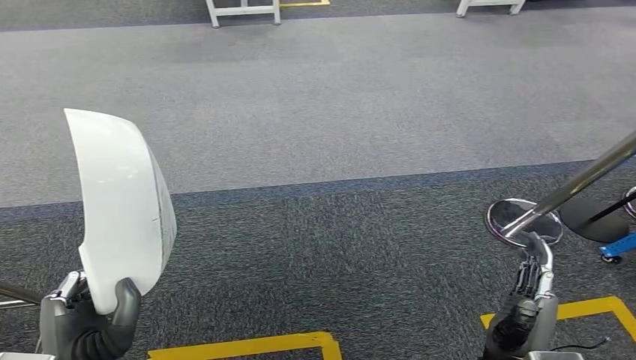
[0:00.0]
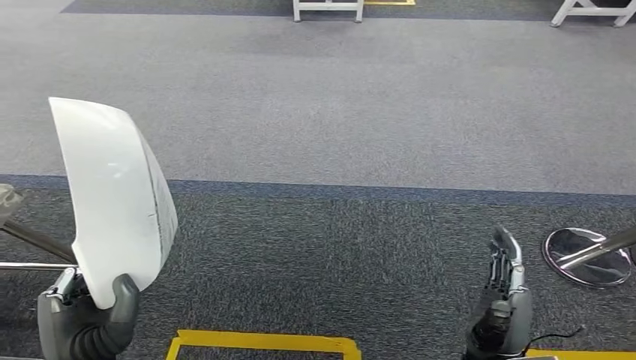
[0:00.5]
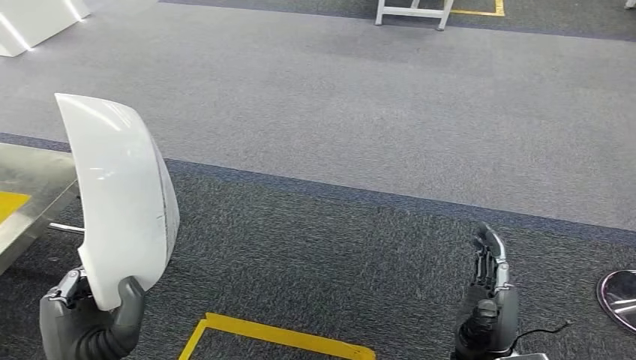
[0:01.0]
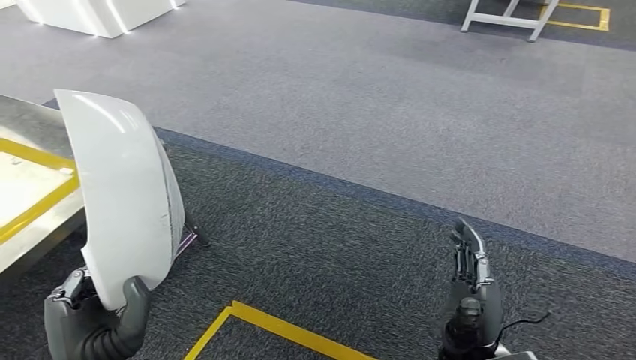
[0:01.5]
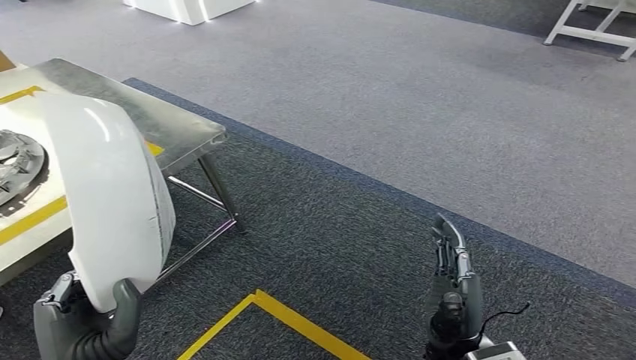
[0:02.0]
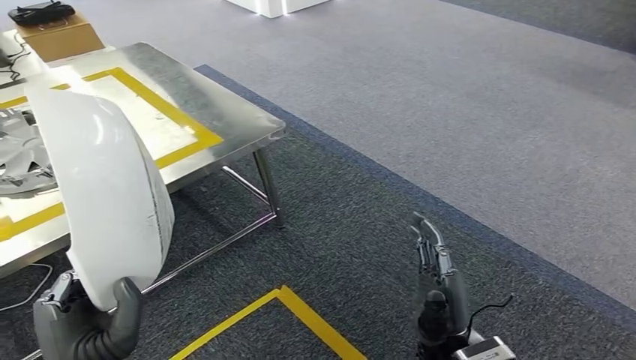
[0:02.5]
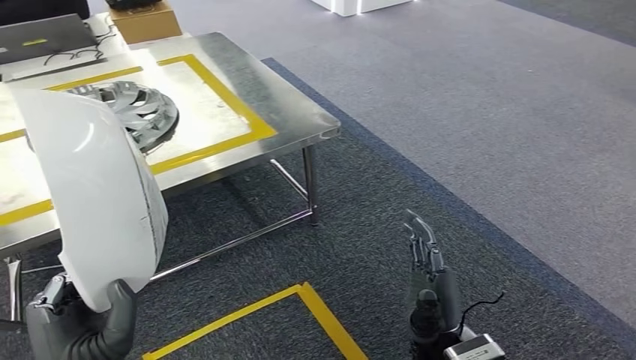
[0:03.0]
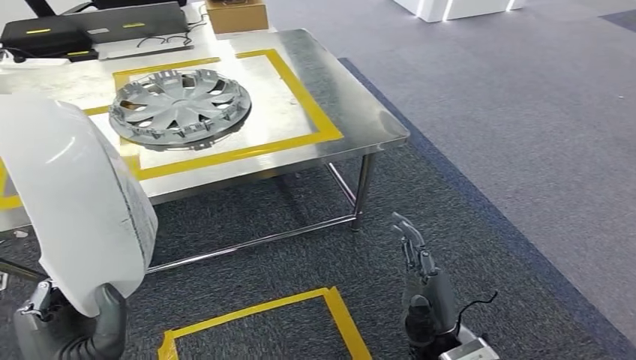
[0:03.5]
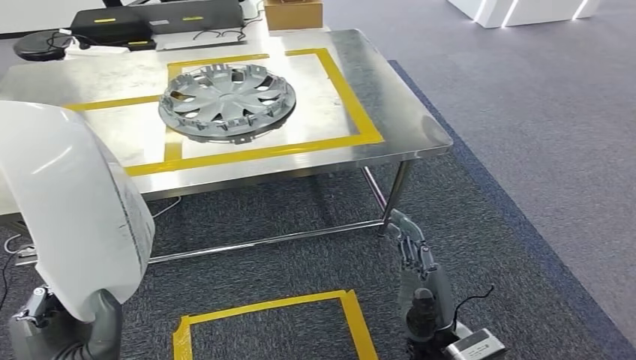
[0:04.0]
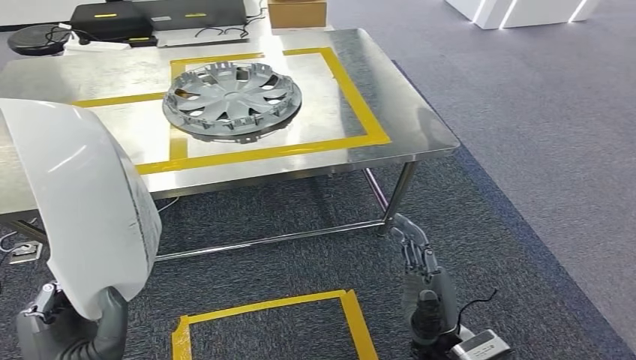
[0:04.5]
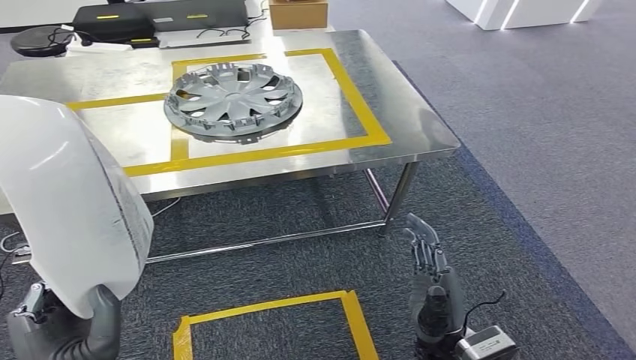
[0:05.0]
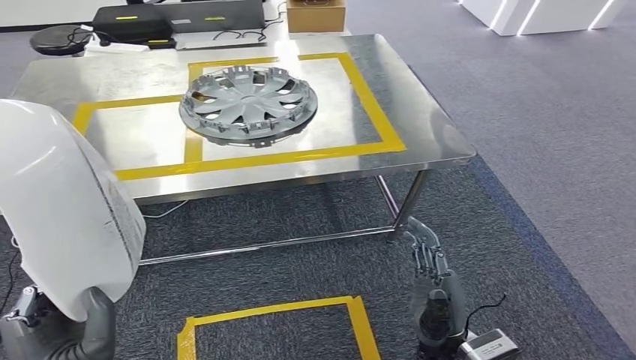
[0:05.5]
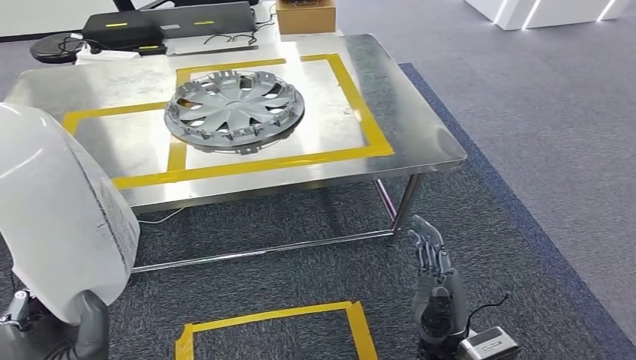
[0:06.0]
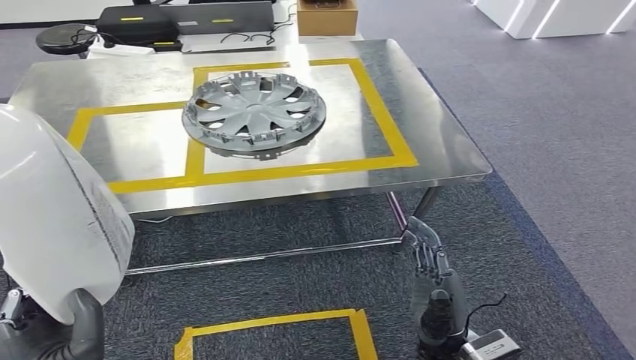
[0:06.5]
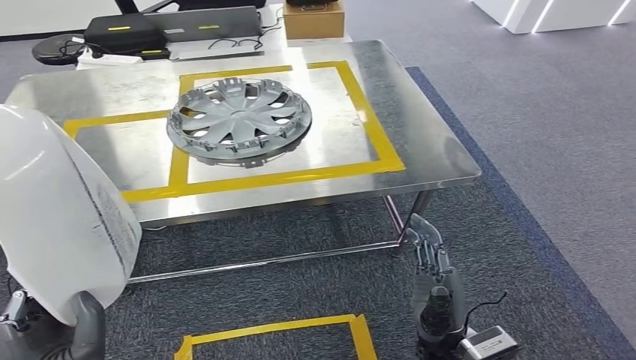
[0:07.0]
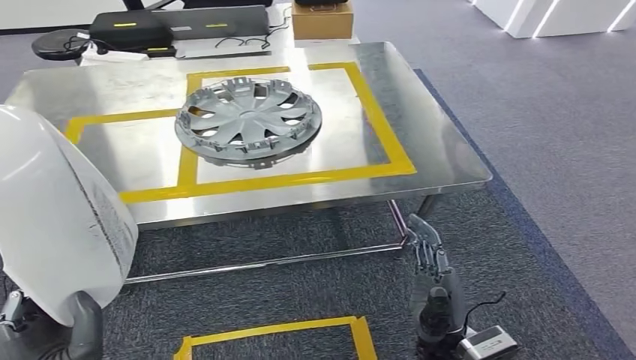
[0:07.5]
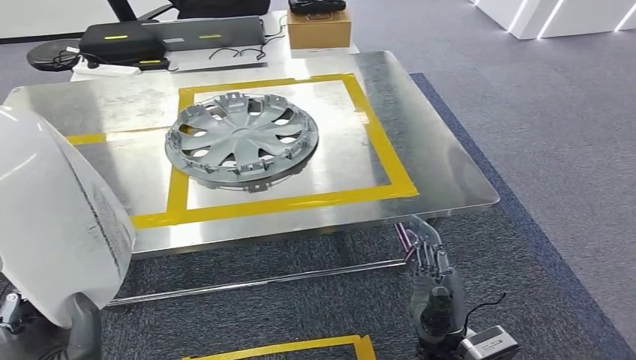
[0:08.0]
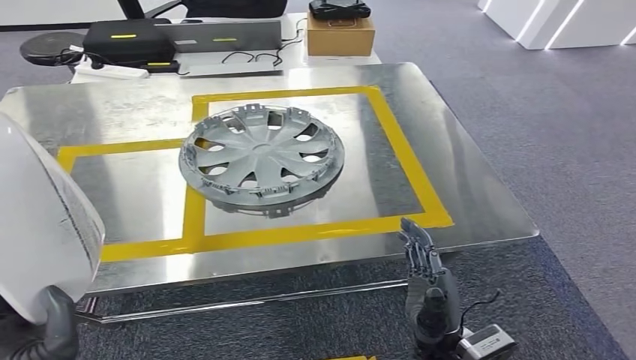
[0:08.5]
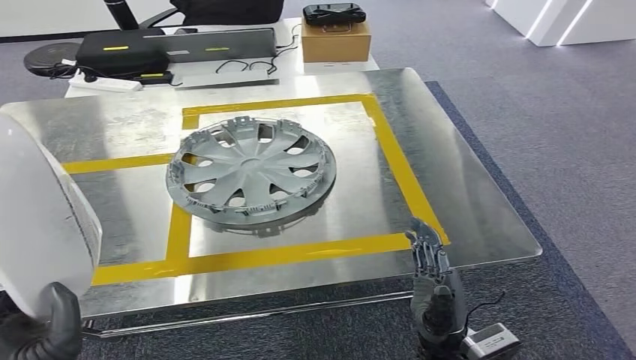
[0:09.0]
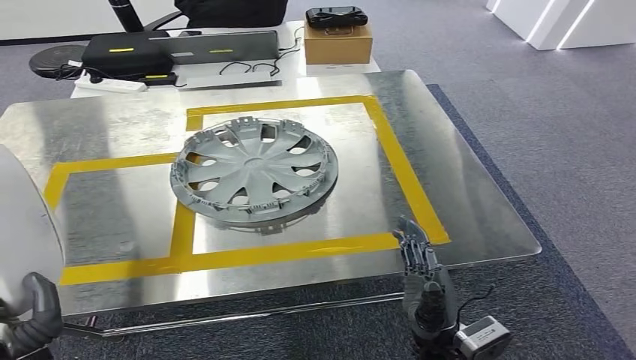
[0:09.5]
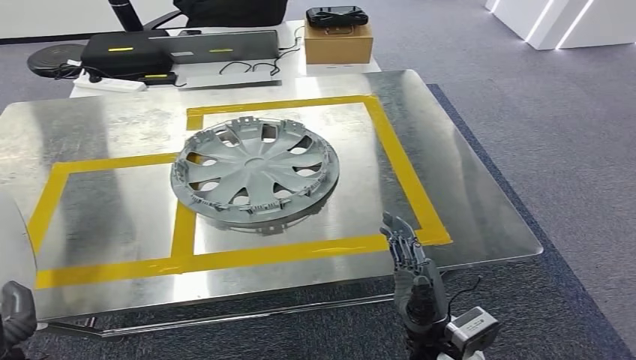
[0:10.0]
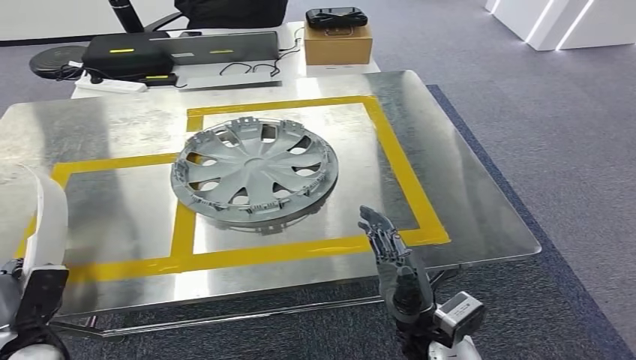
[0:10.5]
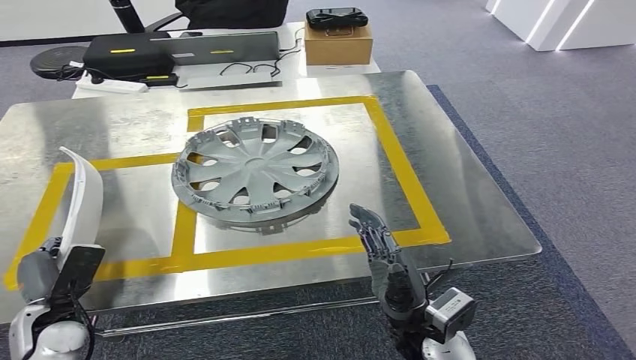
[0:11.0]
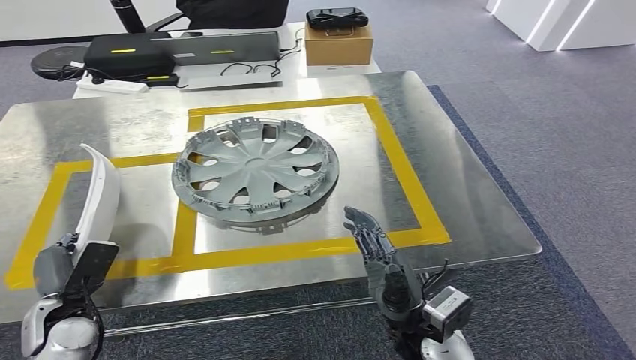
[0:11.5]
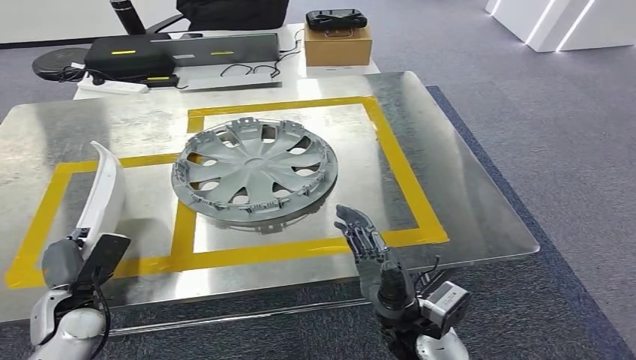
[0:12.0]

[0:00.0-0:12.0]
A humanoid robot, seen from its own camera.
Step, 0:00.0 to 0:09.0: Move the small parts to the workbench.
0:10.0 to 0:12.0: The left hand is displaced forward by some 10 cm.

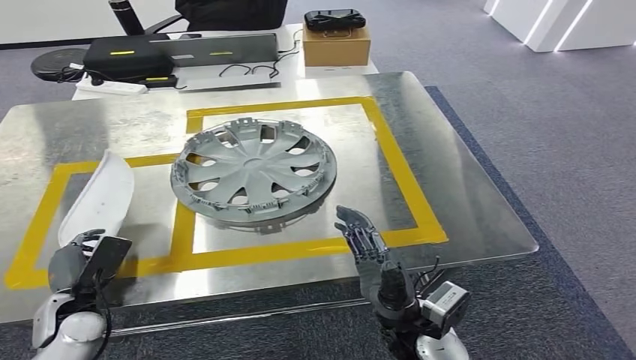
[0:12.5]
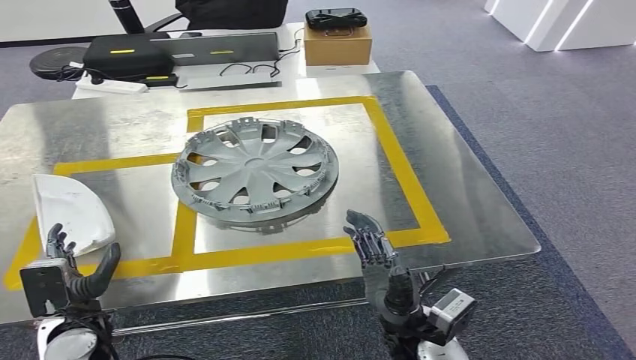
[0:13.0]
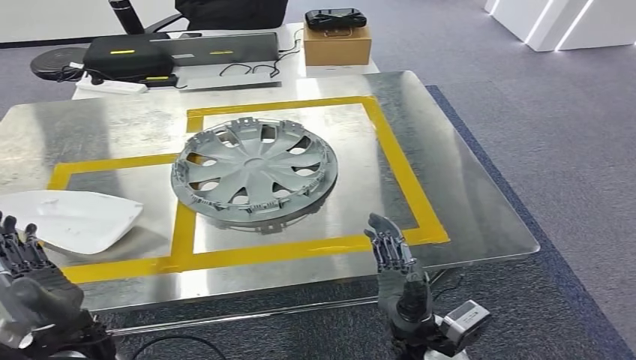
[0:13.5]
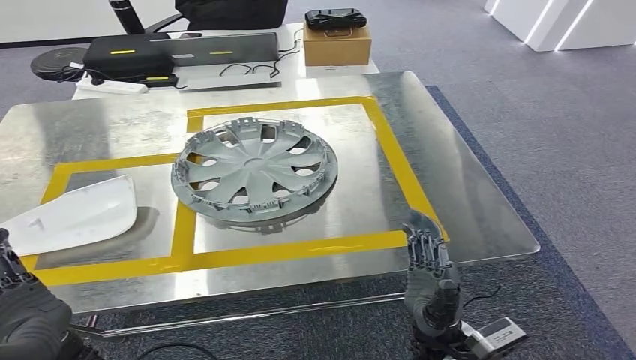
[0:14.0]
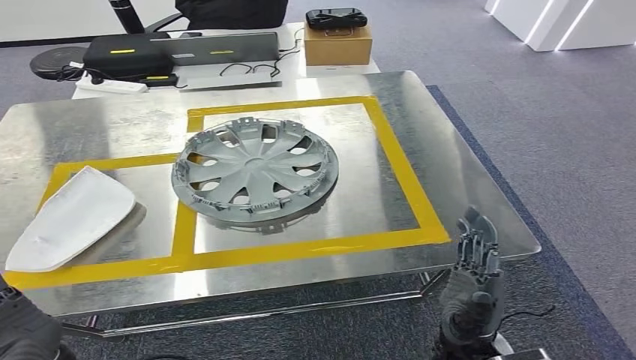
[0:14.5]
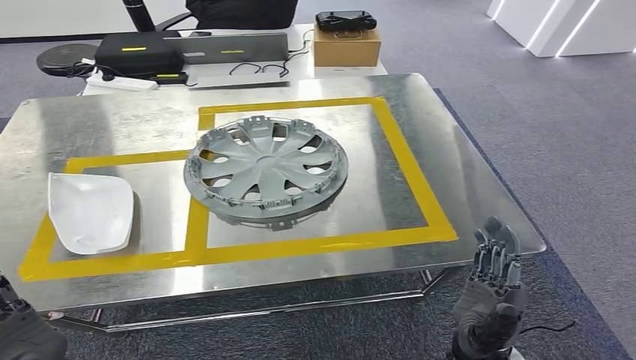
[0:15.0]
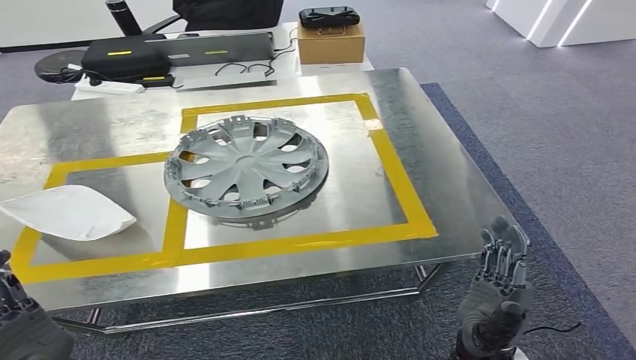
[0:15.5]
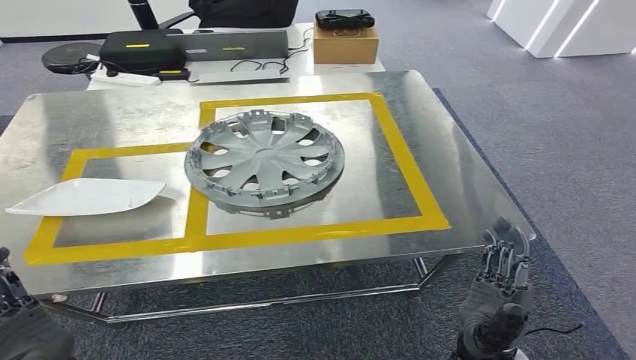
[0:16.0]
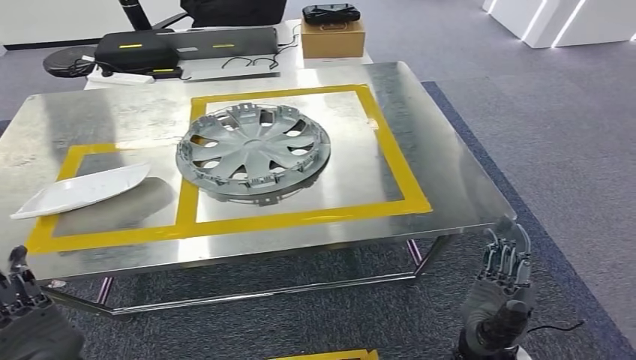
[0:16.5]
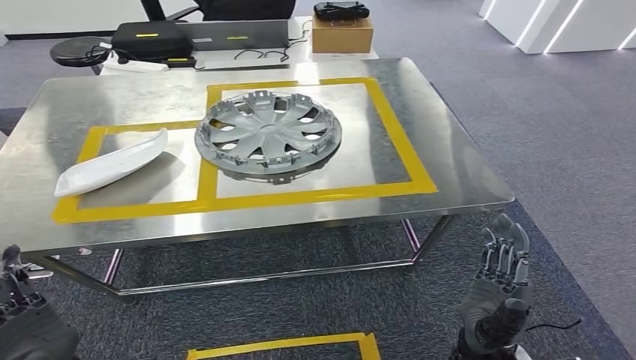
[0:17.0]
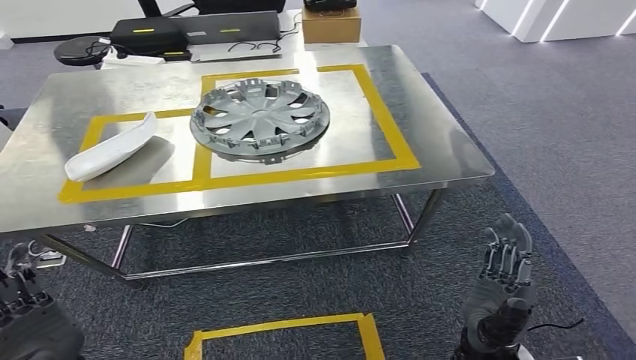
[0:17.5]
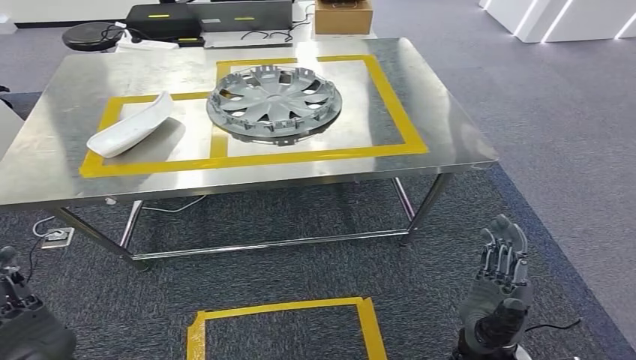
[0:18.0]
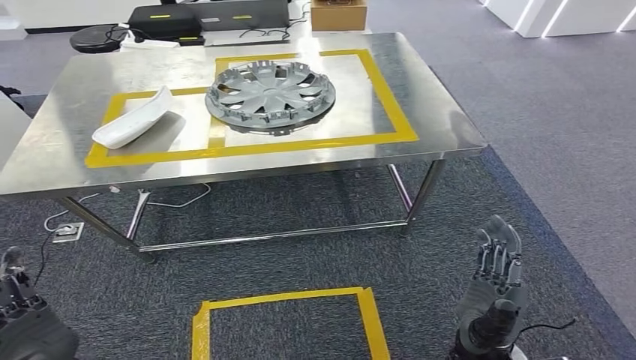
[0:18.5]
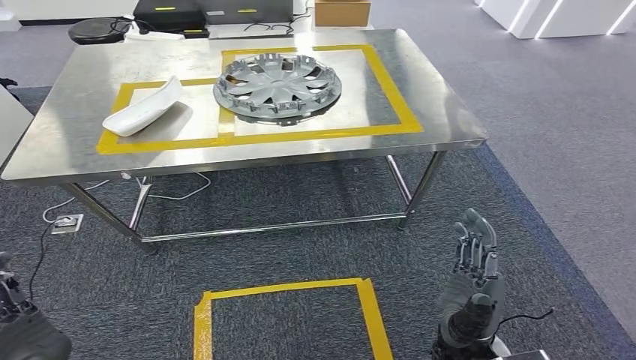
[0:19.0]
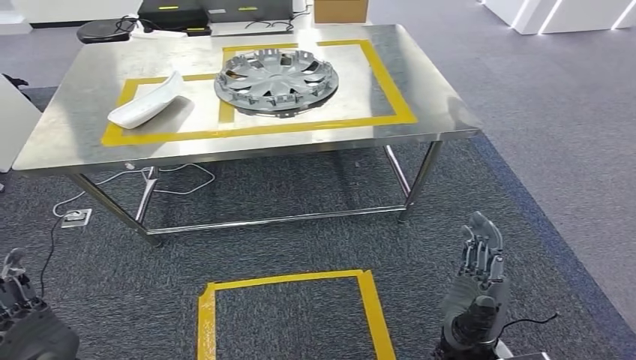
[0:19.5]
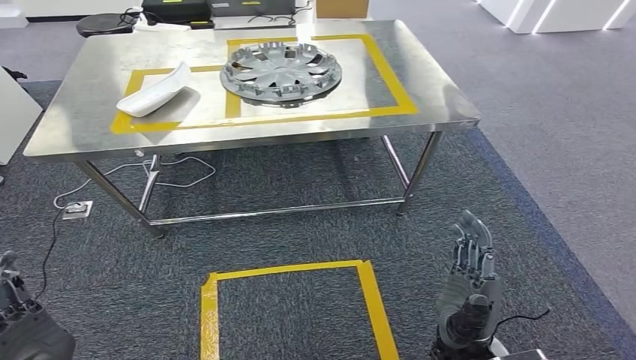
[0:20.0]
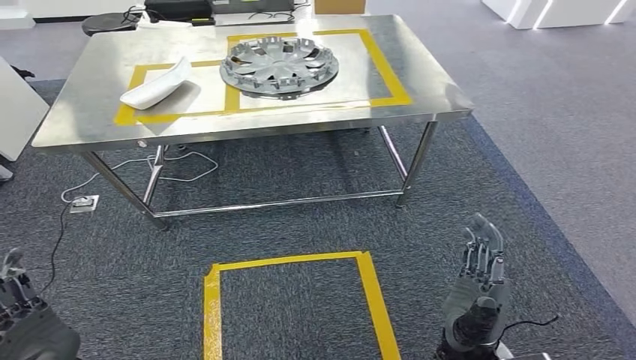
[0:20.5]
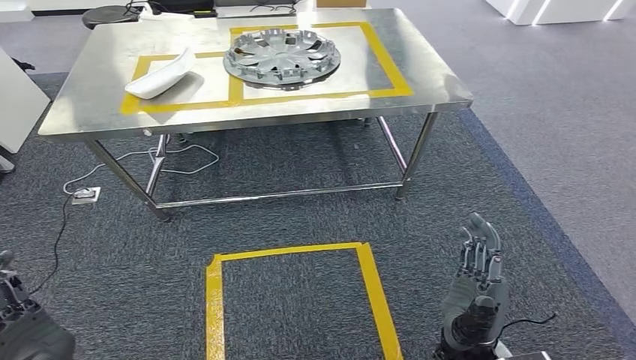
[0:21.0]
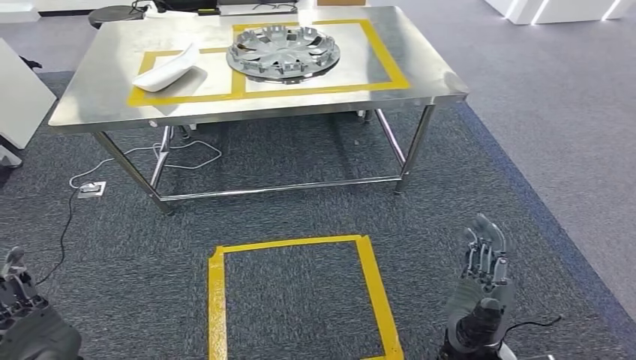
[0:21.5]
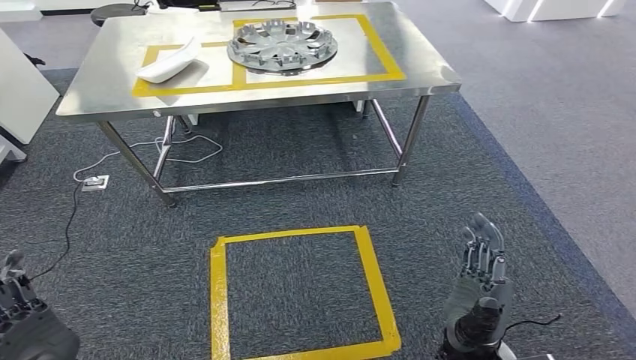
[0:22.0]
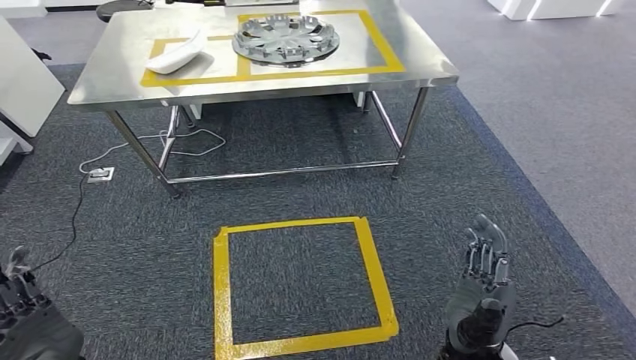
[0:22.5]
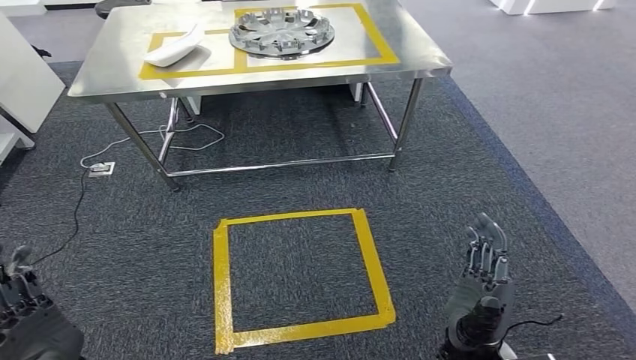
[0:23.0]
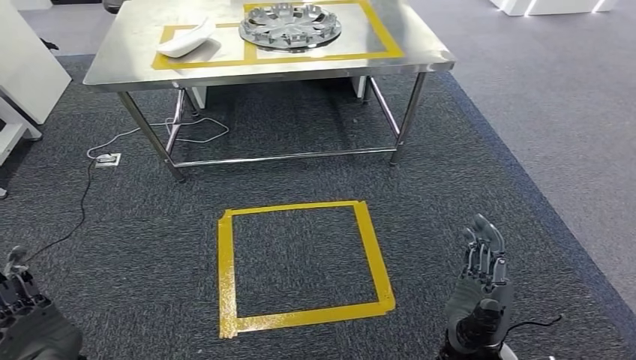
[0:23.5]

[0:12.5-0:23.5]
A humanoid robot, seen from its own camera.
Step, 0:12.5 to 0:14.5: Insert the small parts into the corresponding holes on the workbench.
0:12.5 to 0:14.5: The right hand changes place by about 5 cm. Meanwhile the left hand is displaced upward, to the right and backward by approximately 20 cm.
